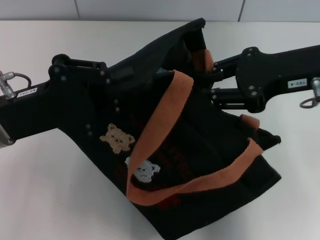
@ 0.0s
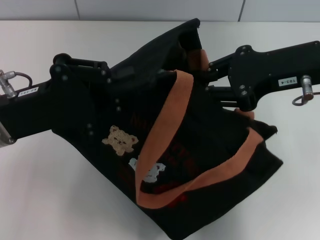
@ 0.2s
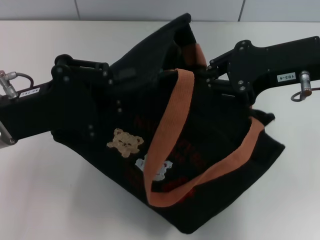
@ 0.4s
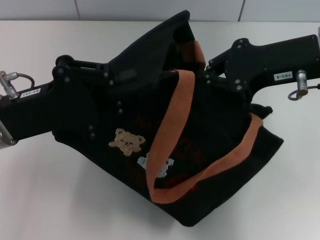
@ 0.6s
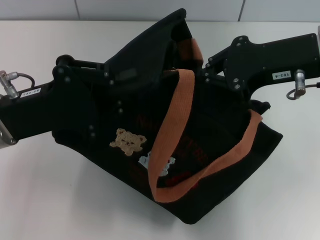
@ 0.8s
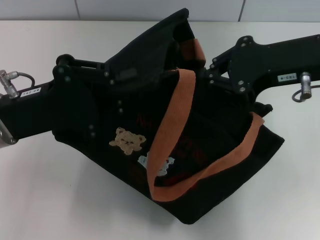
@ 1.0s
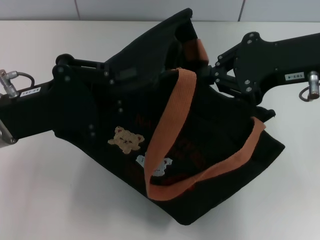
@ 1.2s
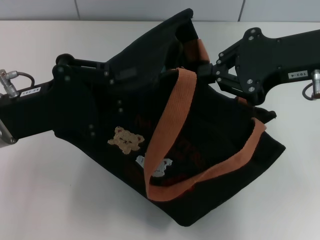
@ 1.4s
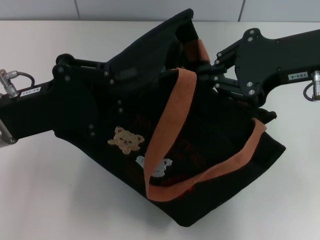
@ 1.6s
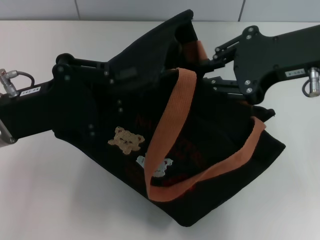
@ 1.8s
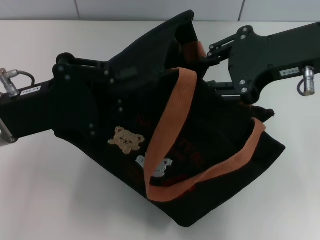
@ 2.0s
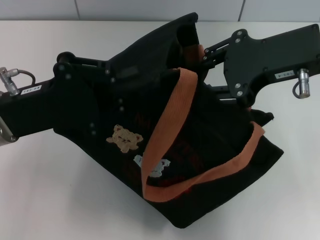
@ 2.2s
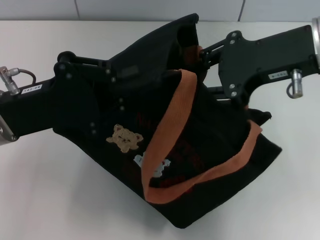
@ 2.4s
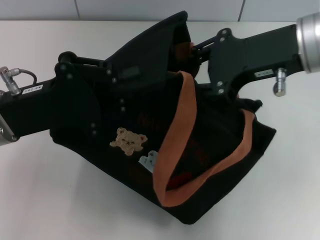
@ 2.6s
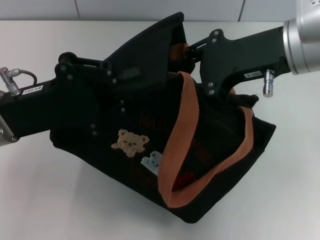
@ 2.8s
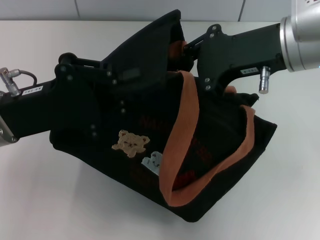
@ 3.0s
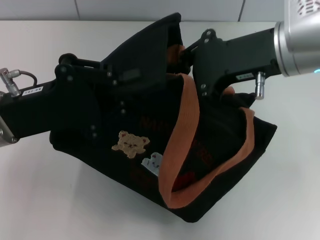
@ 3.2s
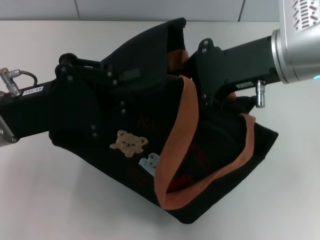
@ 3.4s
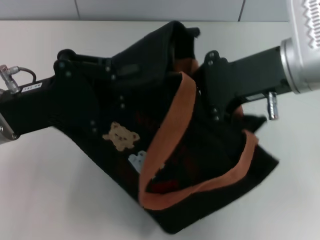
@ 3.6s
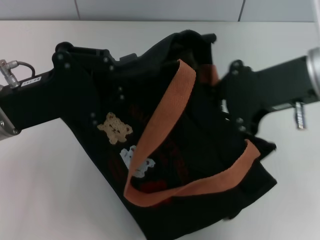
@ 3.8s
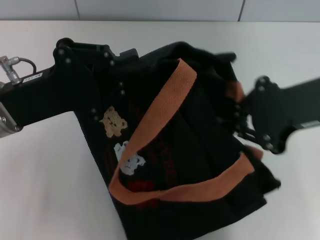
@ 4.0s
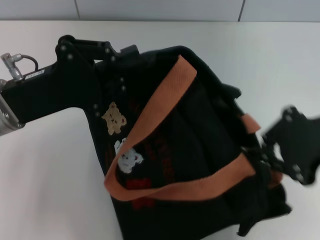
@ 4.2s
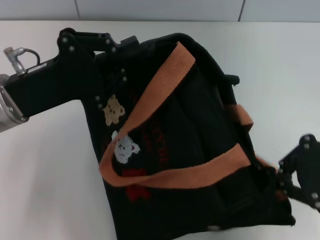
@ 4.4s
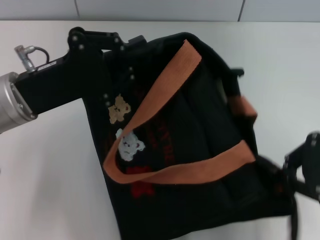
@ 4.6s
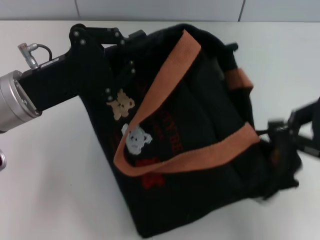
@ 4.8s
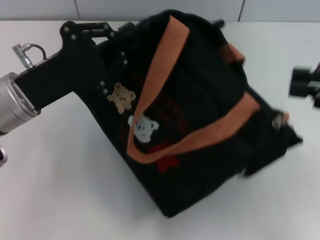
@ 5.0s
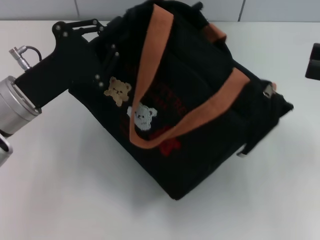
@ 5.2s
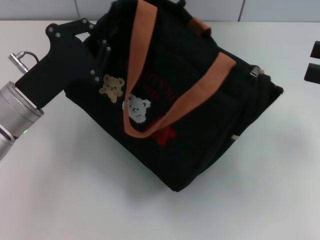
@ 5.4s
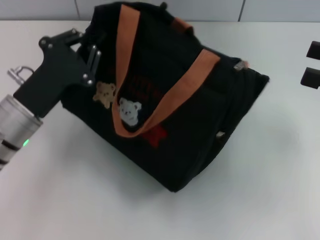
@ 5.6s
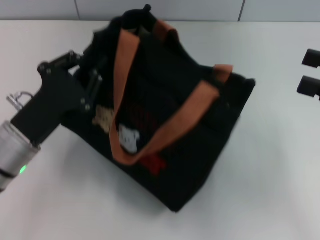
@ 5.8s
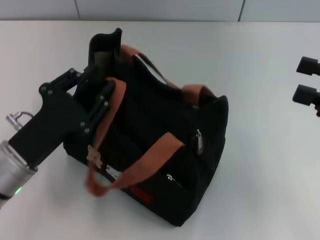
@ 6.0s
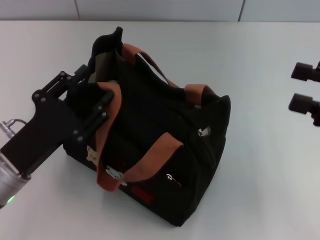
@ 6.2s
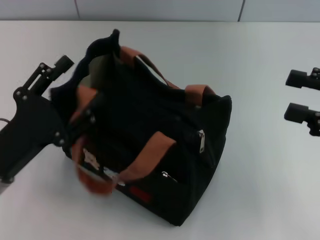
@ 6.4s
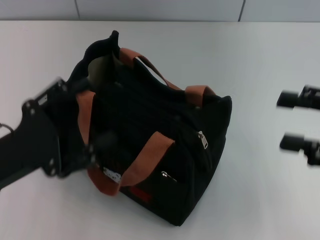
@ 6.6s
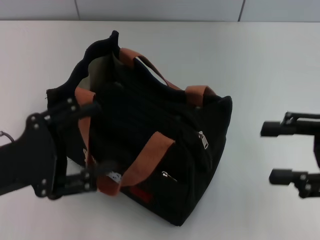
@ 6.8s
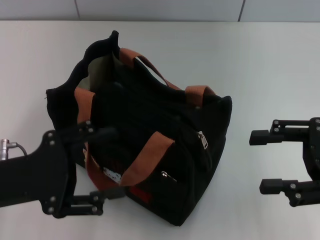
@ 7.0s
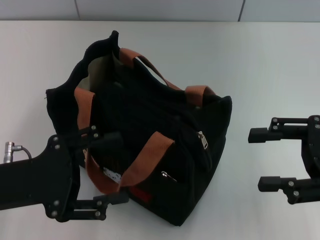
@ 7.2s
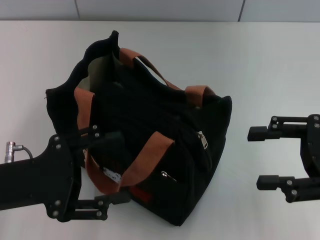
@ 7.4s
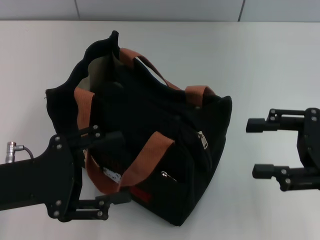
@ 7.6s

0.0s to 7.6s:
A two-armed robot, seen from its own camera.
Step, 0.0s to 5.0s: Pull open the zipper with your right hand.
Step, 5.2s to 6.2s: Grab the bag with your left hand.
1.6s to 3.0s: The right gripper opens.
3.0s to 4.6s: The right gripper travels to the right and backward by roughly 15 cm, and closes.
4.6s to 6.0s: The right gripper travels to the right by approximately 5 cm, and opens. Meanwhile the left gripper heads downward and backward, covering about 10 cm.
6.0s to 7.6s: The left gripper shifts by about 5 cm, and opens its fingers.
